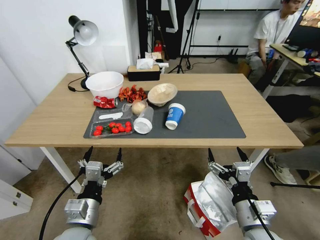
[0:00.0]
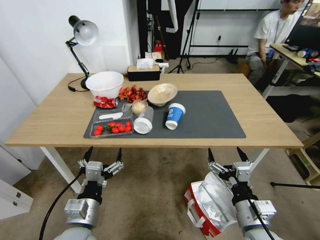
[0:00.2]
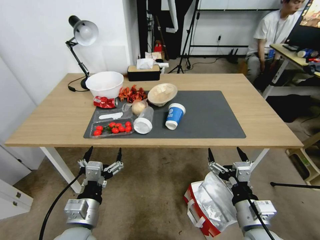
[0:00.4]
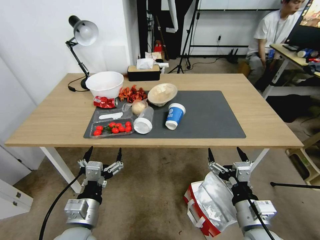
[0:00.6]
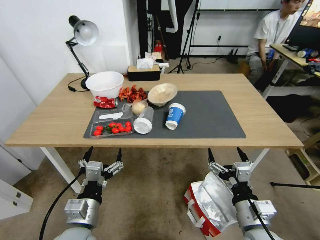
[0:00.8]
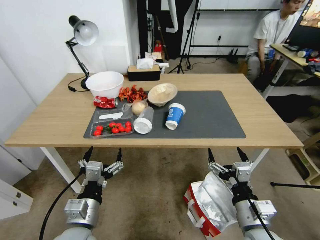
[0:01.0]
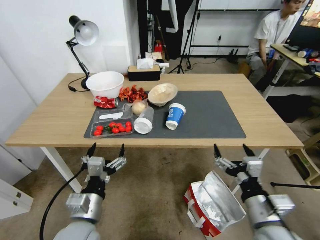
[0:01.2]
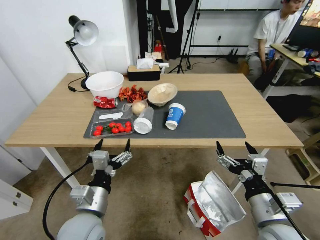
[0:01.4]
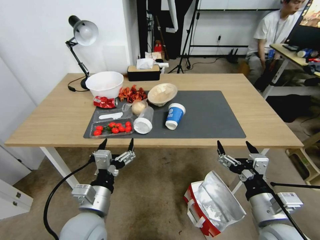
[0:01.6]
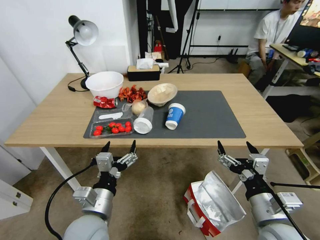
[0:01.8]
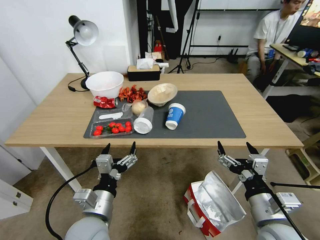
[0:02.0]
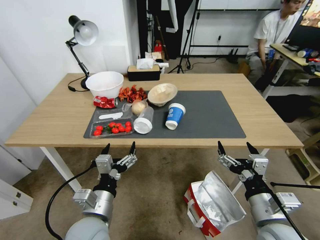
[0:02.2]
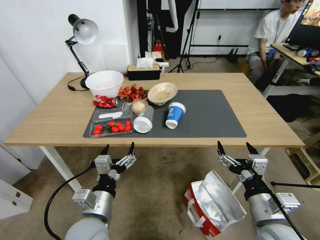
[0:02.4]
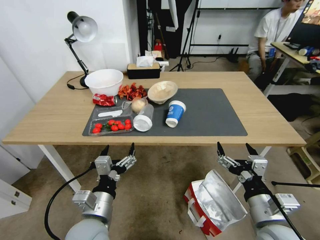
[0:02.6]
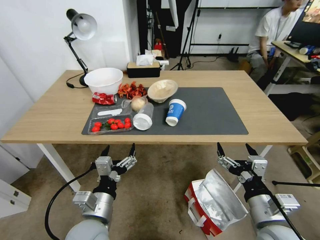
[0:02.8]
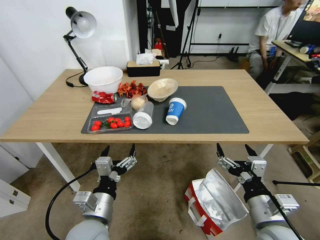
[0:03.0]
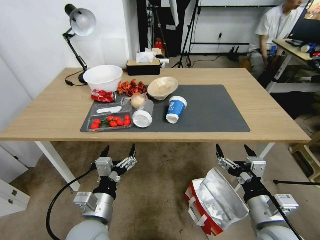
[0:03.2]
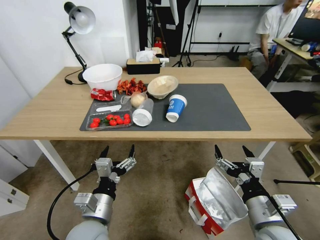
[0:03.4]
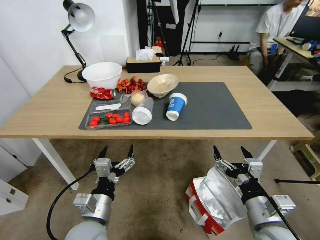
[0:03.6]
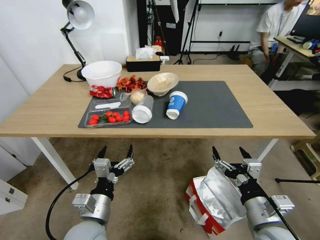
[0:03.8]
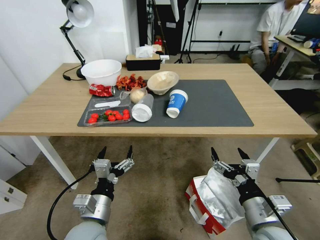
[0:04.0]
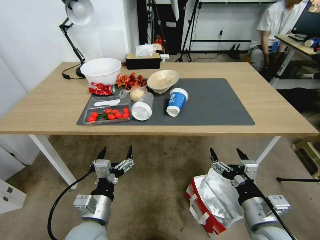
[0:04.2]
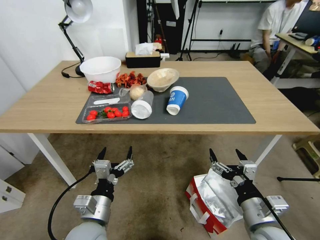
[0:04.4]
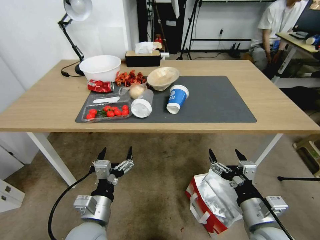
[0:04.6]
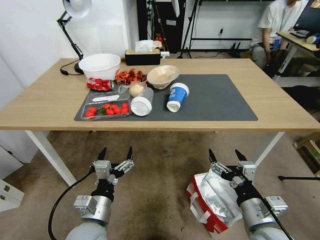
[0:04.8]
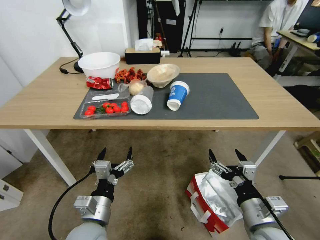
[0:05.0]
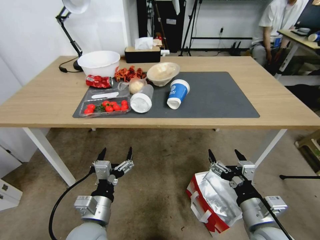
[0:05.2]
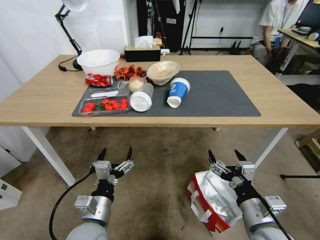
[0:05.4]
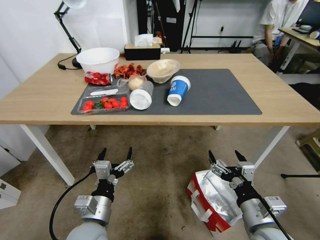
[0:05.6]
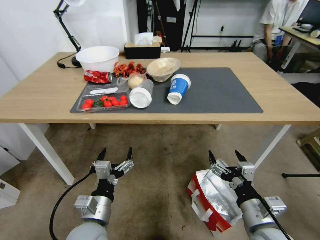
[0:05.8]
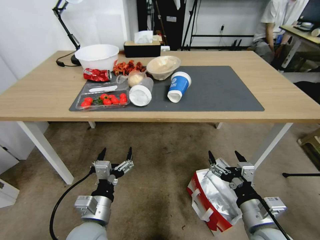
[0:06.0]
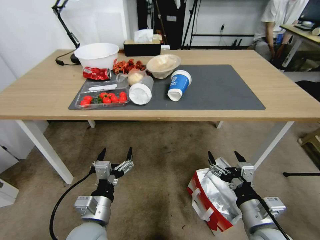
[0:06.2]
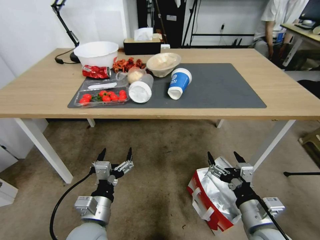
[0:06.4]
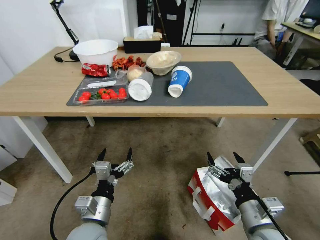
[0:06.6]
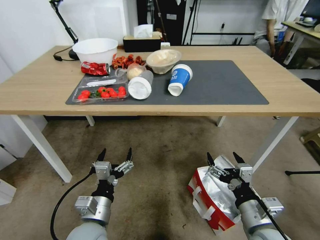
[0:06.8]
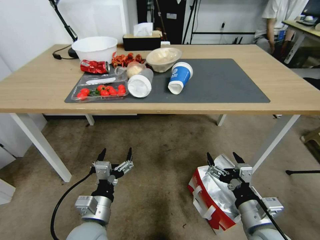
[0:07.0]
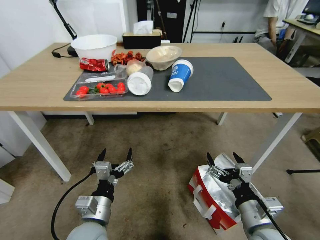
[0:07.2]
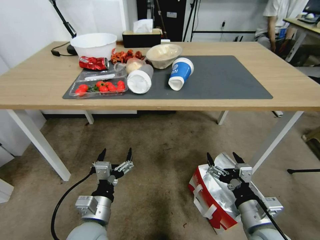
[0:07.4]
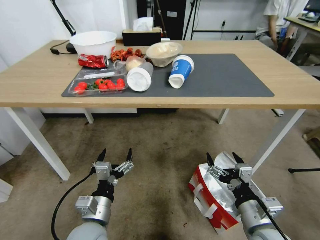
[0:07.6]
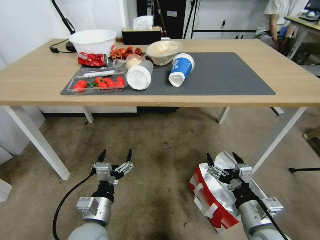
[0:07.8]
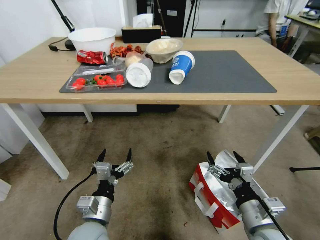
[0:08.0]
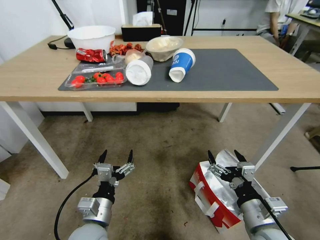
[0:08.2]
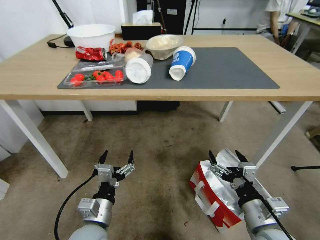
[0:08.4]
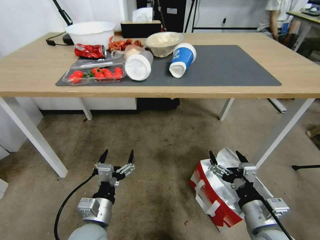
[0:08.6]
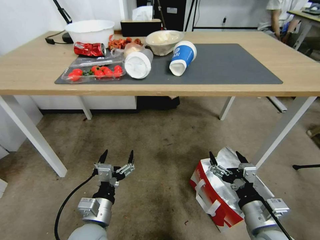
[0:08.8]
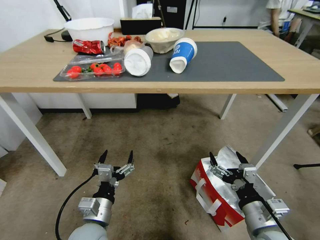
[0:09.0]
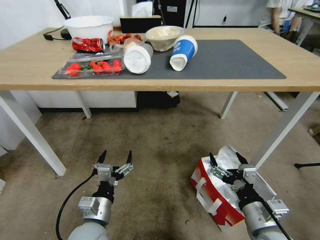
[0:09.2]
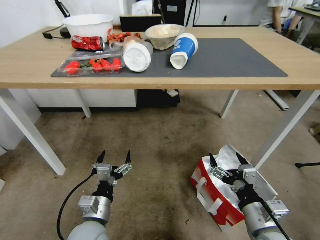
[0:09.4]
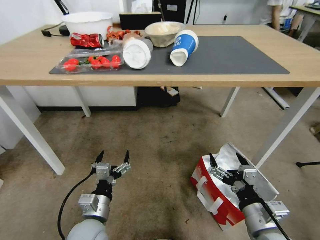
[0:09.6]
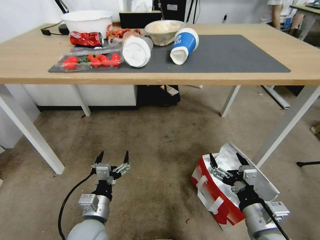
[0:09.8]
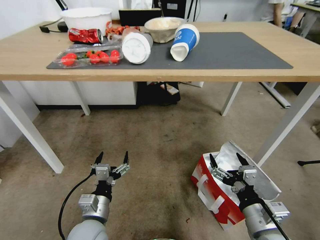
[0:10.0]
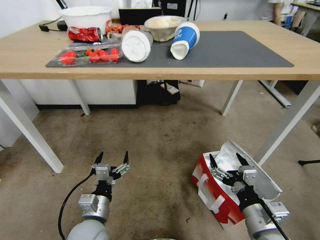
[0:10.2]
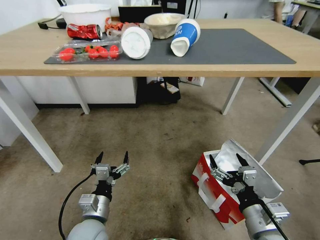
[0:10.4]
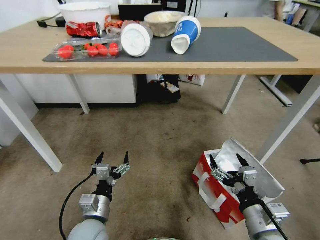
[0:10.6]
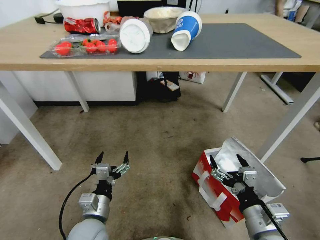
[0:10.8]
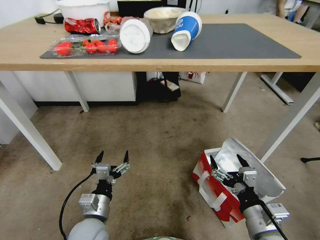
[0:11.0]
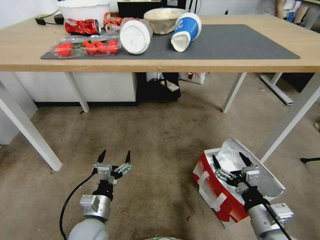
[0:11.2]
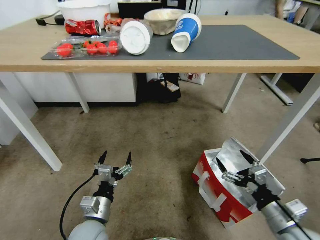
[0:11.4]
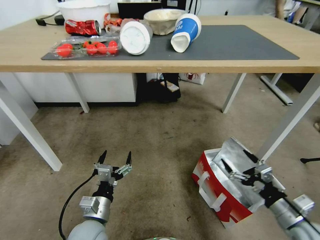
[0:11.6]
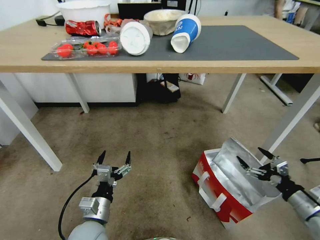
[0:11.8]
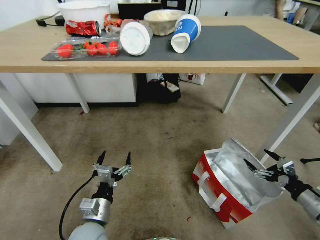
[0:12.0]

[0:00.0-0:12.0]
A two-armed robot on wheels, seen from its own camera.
Task of the whole recording: Pick up the food delivery bag from the floor and place it on the table.
0:10.4 to 0:12.0: The right gripper is displaced to the right by some 25 cm.

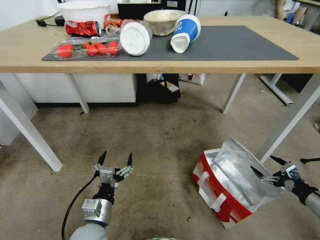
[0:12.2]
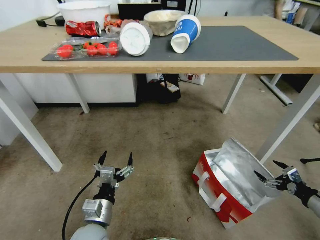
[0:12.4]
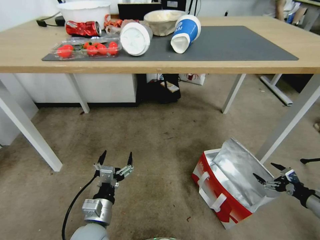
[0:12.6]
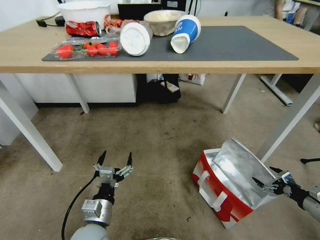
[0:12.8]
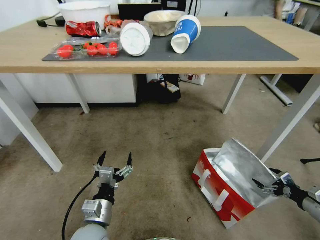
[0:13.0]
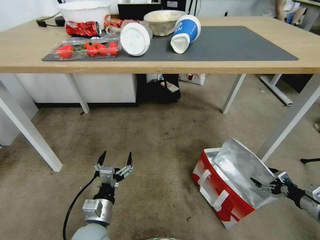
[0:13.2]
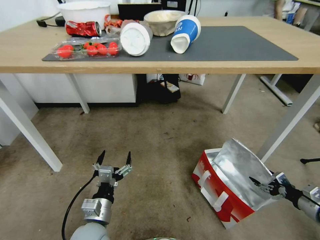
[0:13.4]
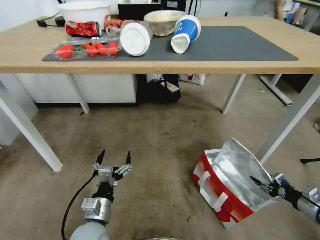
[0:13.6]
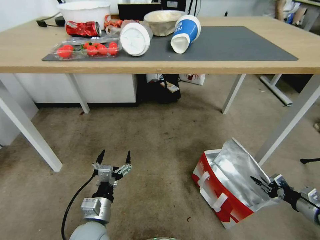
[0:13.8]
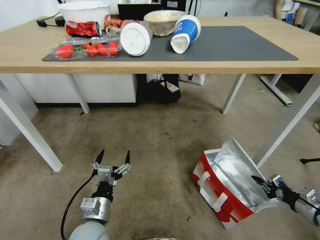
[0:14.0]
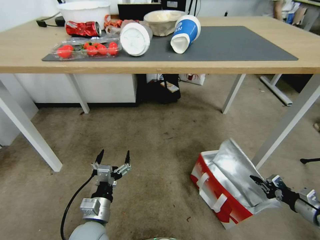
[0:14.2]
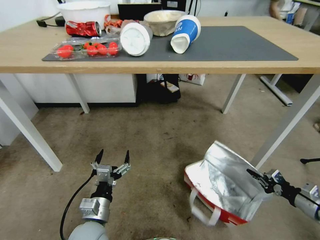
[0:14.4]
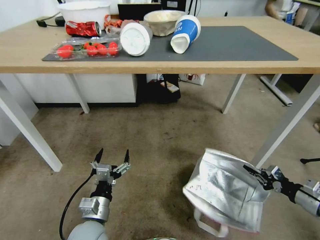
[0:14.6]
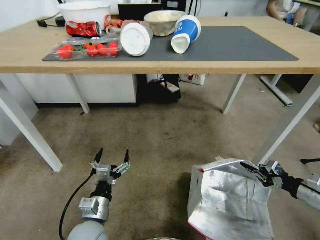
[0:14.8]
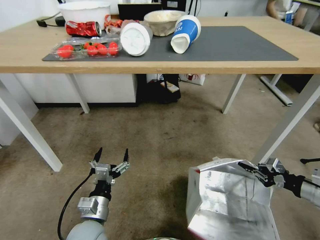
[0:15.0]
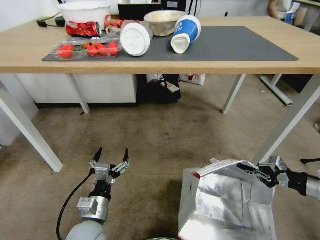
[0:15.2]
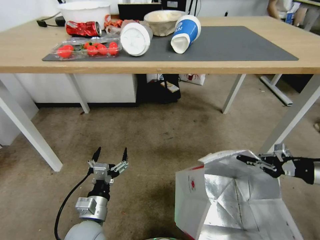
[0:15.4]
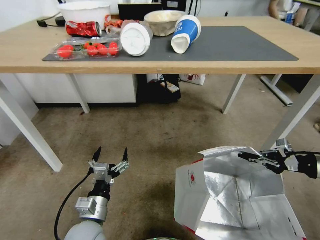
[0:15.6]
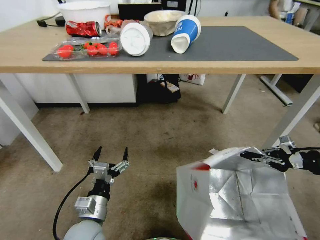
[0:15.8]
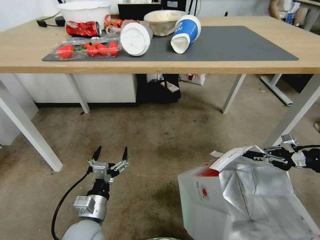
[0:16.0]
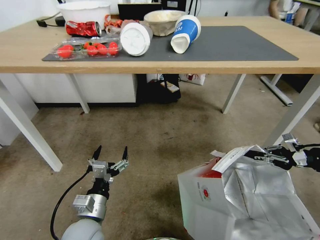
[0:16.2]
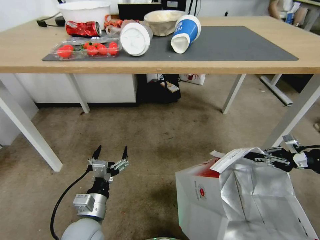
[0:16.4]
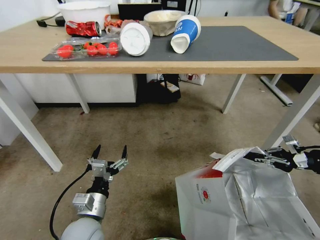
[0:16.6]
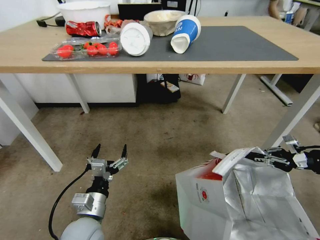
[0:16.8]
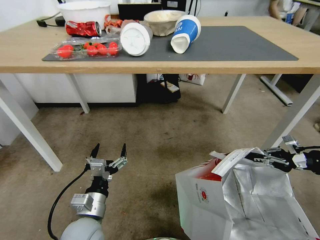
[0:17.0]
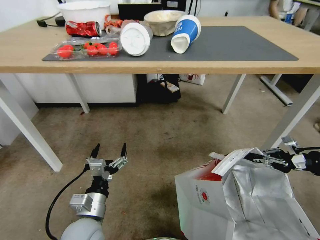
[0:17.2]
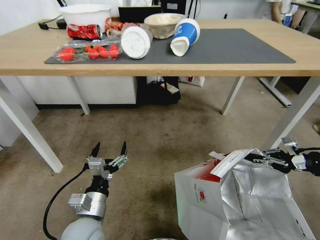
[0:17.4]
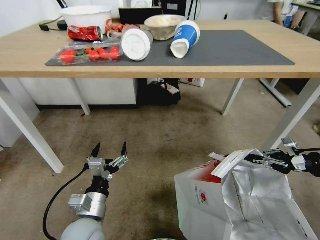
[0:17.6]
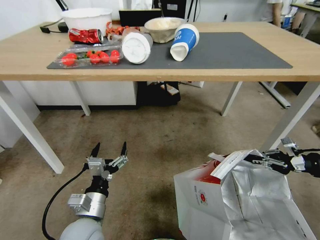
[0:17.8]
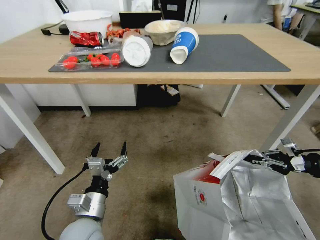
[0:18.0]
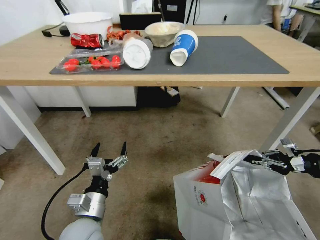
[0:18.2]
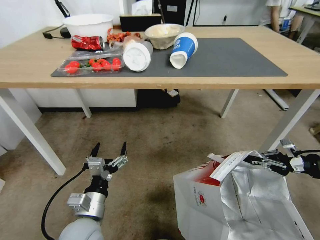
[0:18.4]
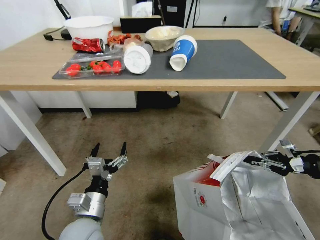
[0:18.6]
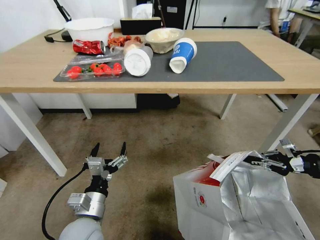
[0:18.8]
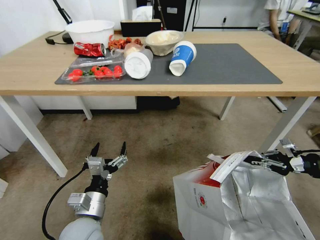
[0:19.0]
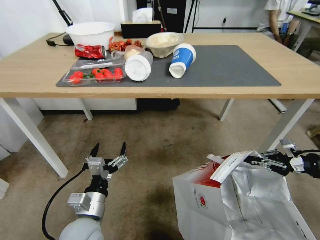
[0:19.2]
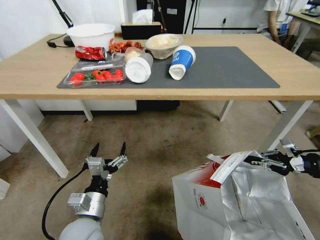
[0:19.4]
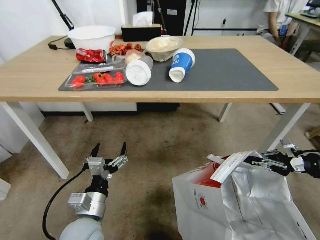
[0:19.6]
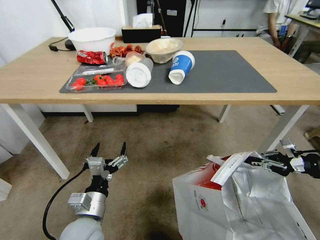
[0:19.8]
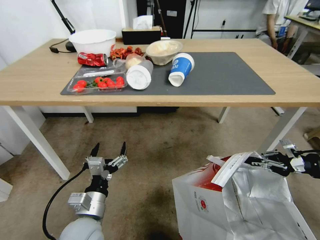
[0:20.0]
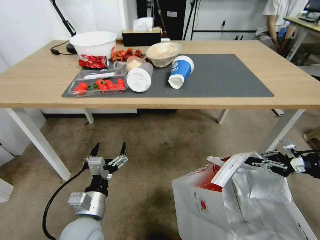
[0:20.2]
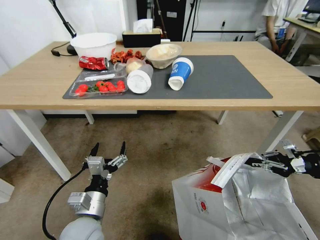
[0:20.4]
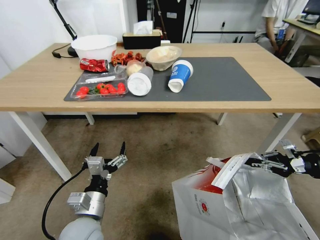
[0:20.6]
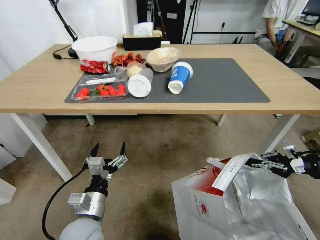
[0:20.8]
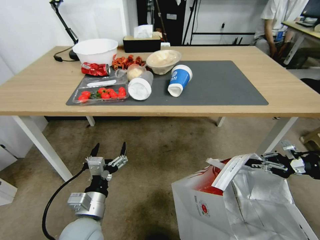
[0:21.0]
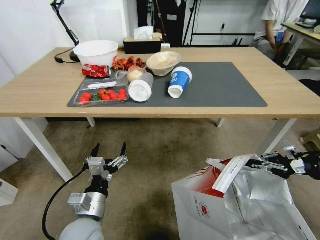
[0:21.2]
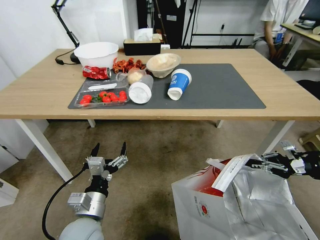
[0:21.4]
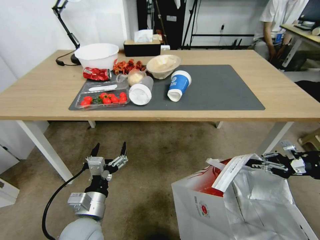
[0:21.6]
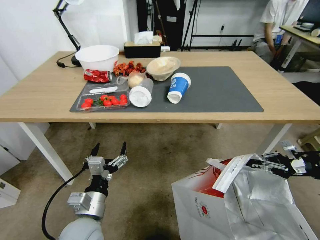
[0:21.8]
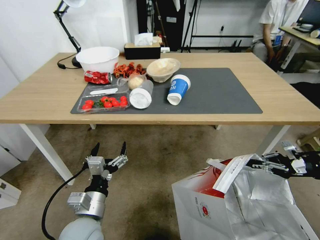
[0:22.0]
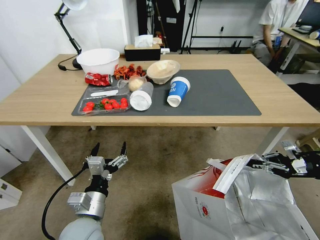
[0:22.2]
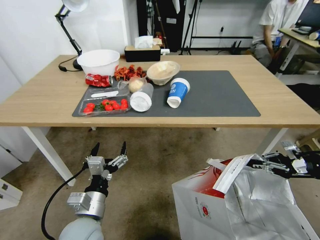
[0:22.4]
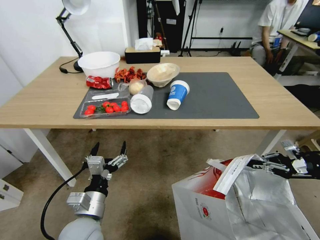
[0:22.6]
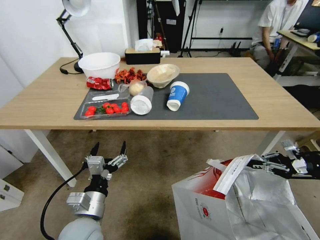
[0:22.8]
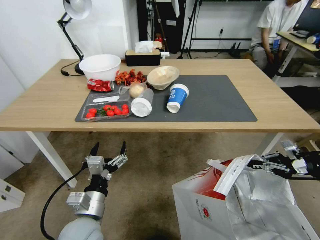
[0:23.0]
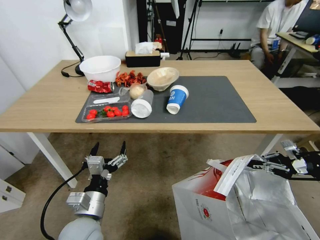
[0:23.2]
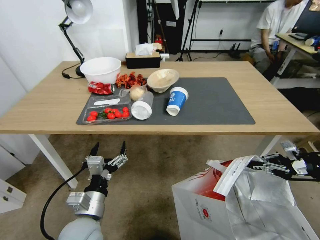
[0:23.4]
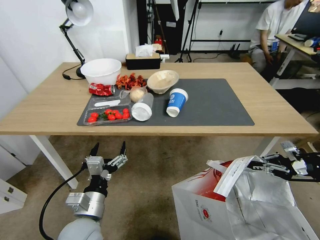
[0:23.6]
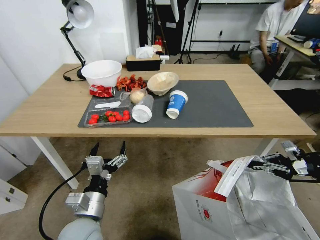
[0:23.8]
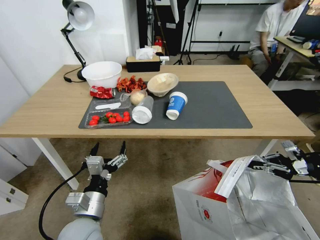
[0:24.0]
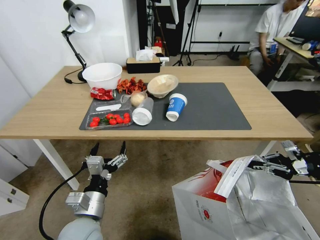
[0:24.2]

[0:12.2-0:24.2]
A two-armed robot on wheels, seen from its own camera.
Task of the whole recording: Pick up the food delivery bag from the floor and place it on the table.
0:12.2 to 0:13.8: The right gripper is displaced downward by approximately 5 cm, and closes up.
0:13.8 to 0:15.2: The right gripper travels upward by roughly 15 cm.
0:15.2 to 0:16.6: The right gripper goes about 5 cm forward.
